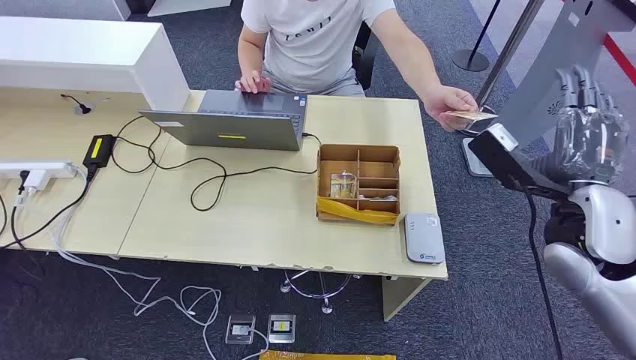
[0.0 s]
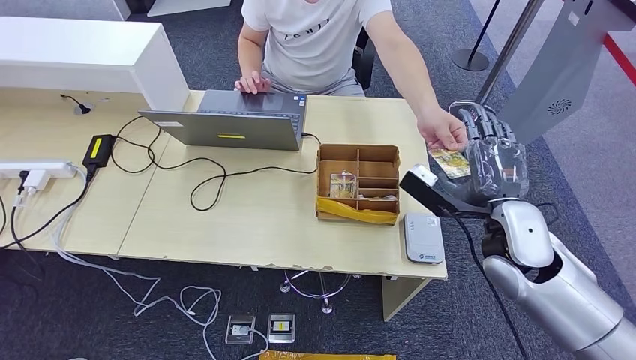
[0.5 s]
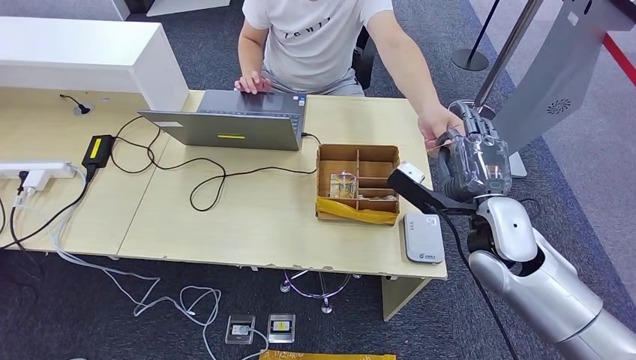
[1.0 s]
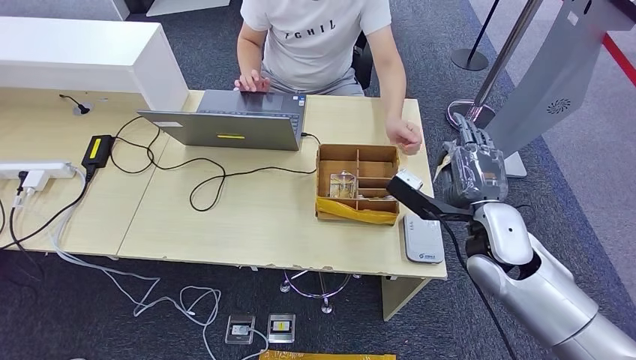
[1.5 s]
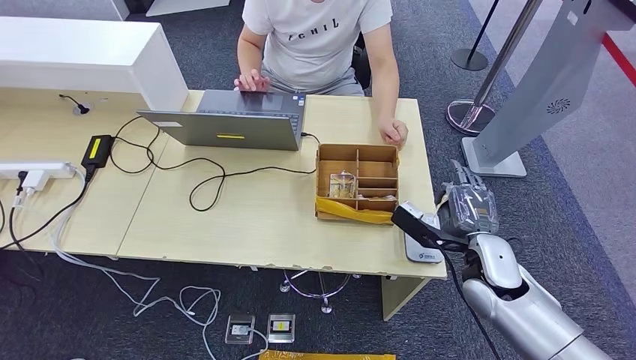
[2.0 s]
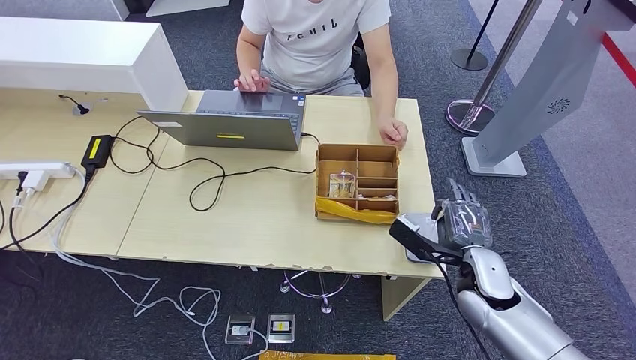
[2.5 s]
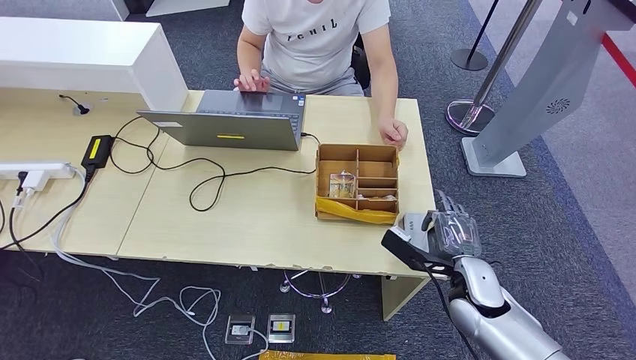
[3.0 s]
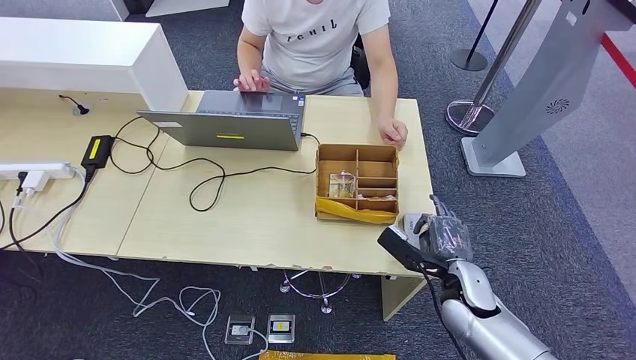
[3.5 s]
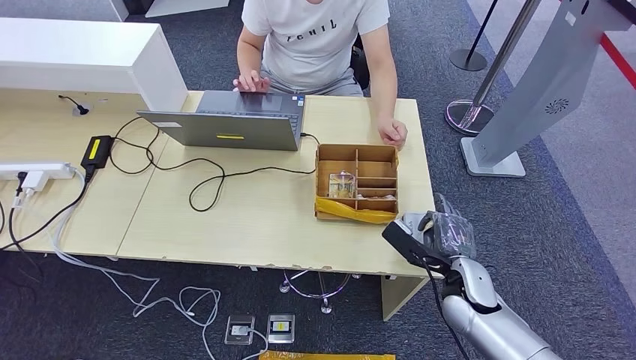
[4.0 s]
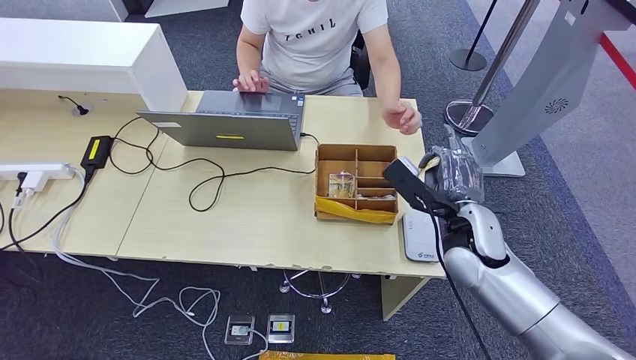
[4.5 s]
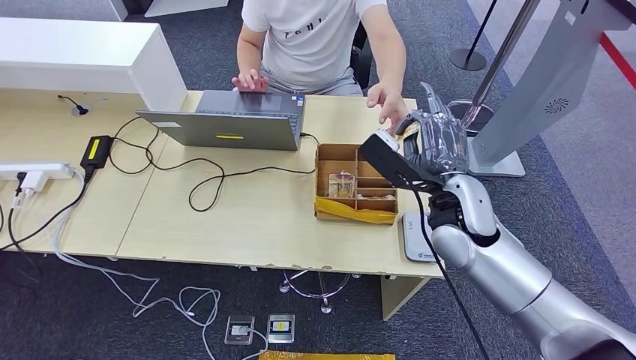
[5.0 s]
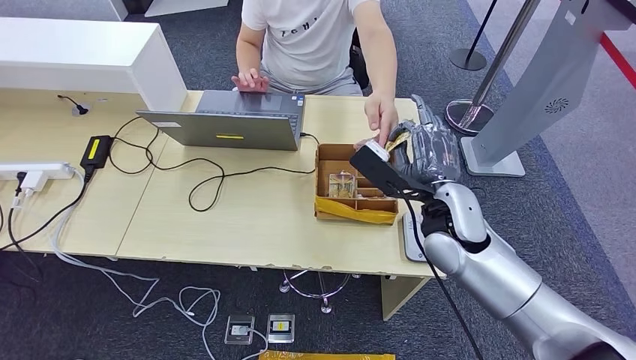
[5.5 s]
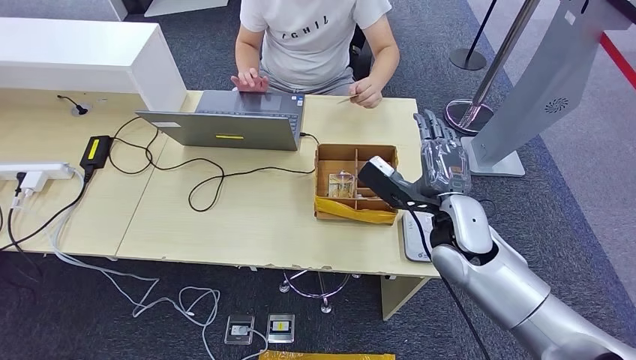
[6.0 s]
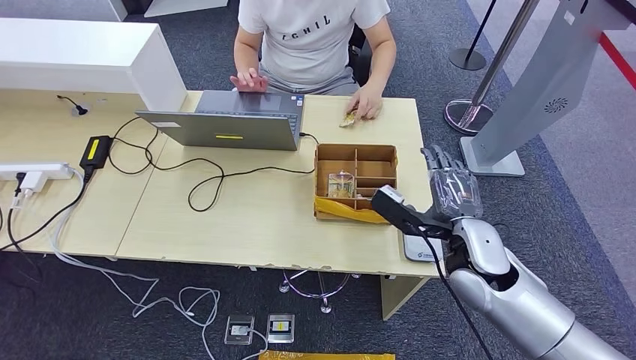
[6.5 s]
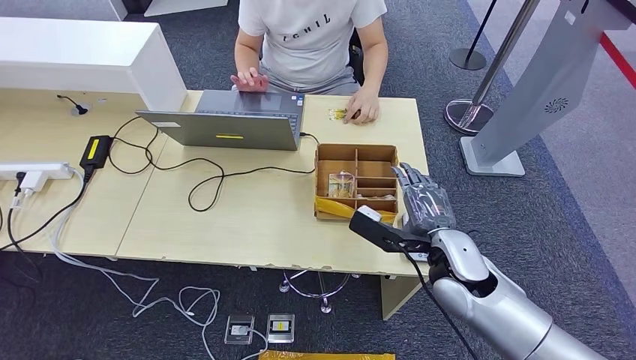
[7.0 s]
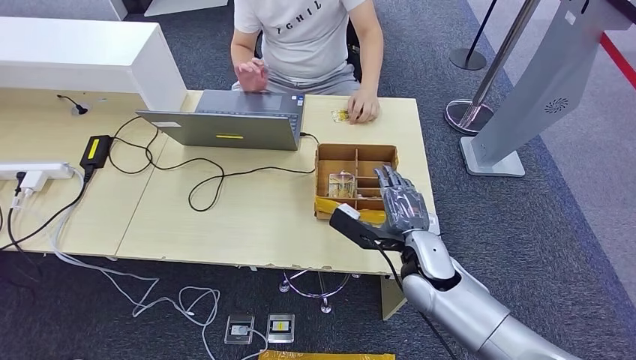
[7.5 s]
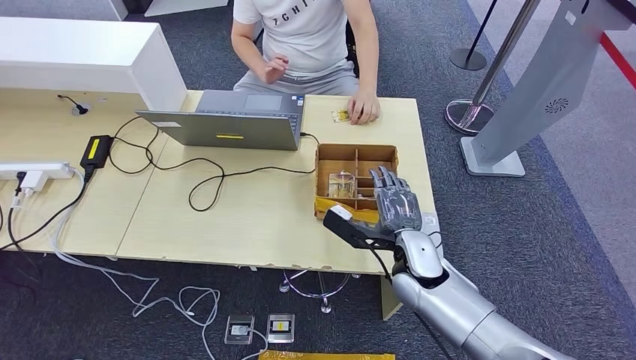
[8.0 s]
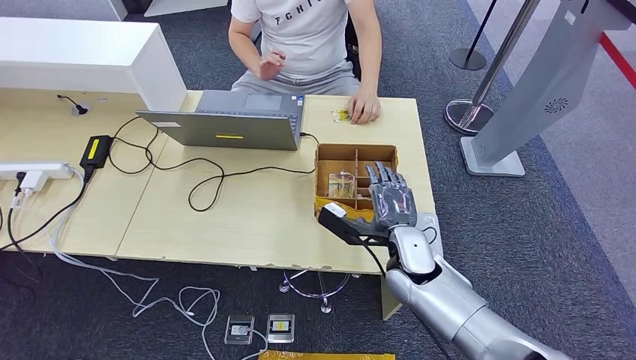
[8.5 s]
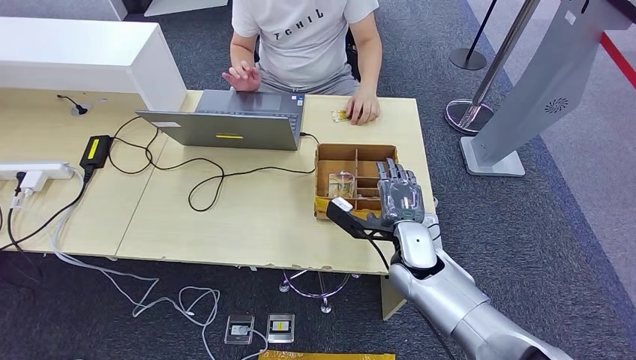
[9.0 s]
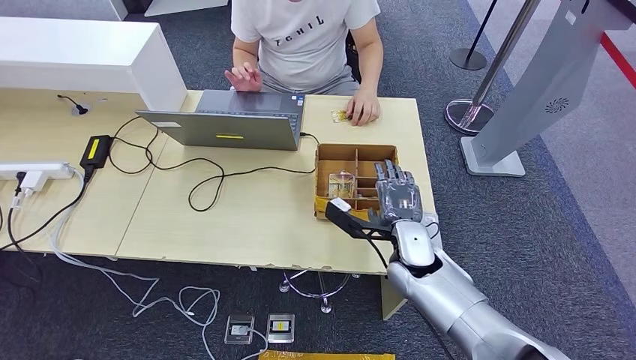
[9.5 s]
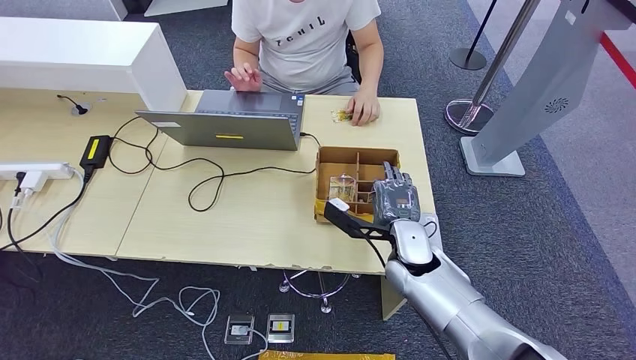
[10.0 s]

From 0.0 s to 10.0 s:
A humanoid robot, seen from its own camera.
Step, from 0.0 s to 1.0 s: Take the ID card from the person's hand.
Step, from 1.5 s to 4.0 s: Place the ID card on the card reader.
Step, from 4.5 s to 6.0 s: Hand the ID card to the person.
From 2.0 s to 4.0 s: The right hand is displaced downward by about 5 cm.
From 4.0 s to 6.0 s: The right hand travels upward and to the left by roughly 15 cm.
From 6.0 s to 8.0 s: The right hand is displaced downward by approximately 10 cm.
From 8.0 s to 10.0 s: There are only small adjustments of the hands.

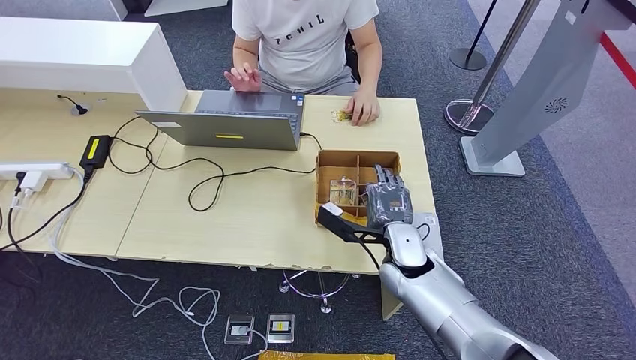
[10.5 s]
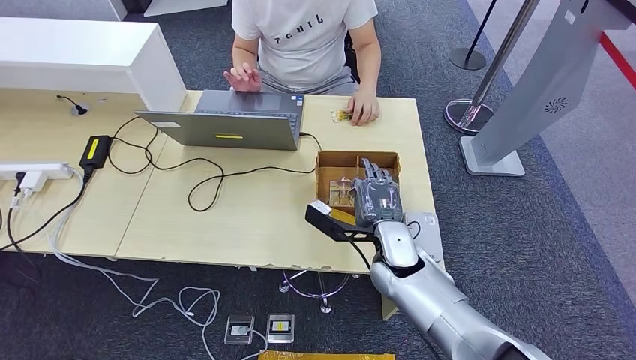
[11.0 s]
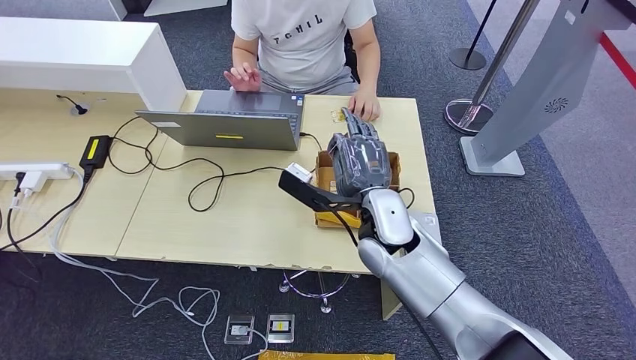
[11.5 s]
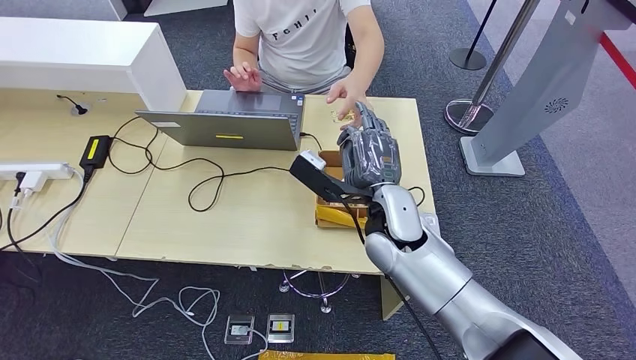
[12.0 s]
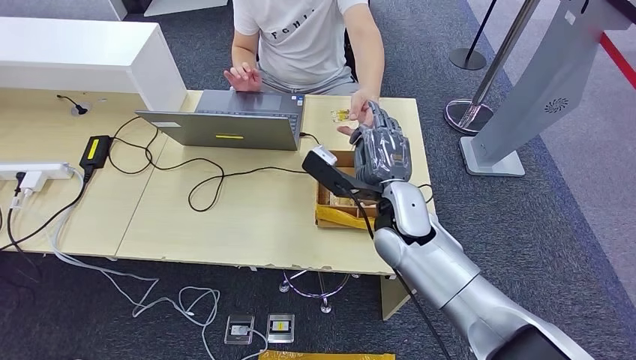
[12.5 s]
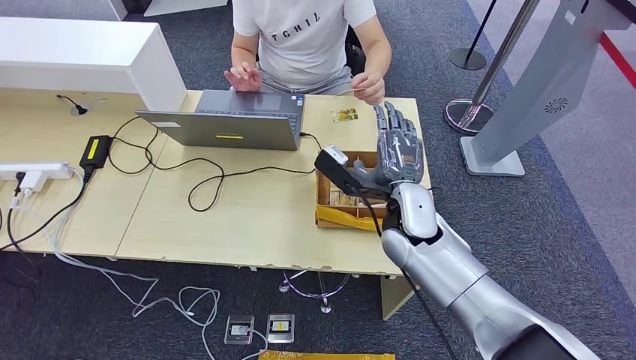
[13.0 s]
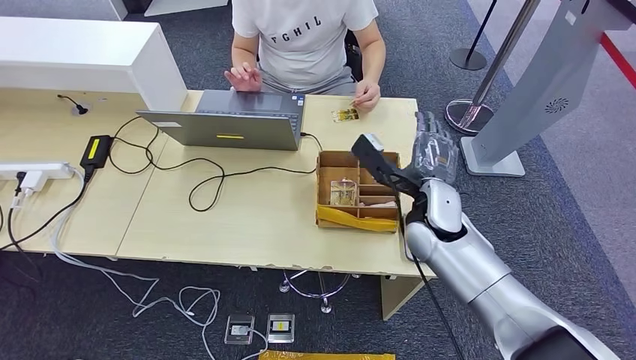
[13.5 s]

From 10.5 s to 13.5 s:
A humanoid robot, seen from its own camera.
Step, from 12.0 s to 13.5 s: Hand the room key to the person.
From 10.5 s to 12.0 s: The right hand shifts some 10 cm upward.
From 12.0 s to 13.5 s: The right hand moves to the right, roughly 10 cm.
